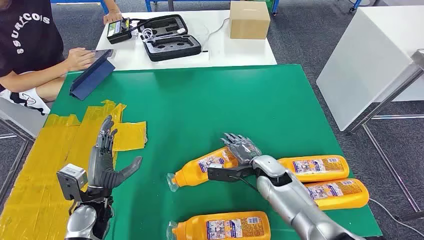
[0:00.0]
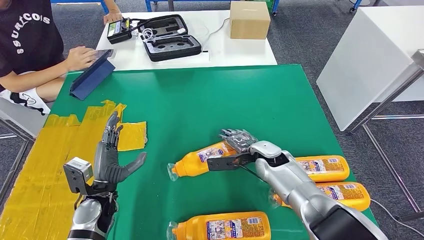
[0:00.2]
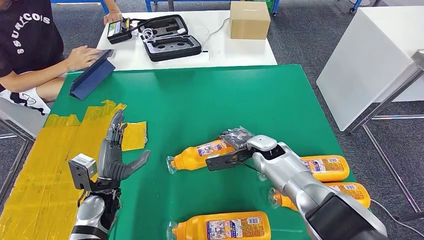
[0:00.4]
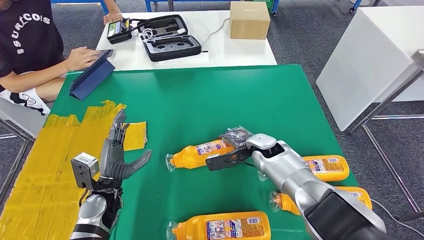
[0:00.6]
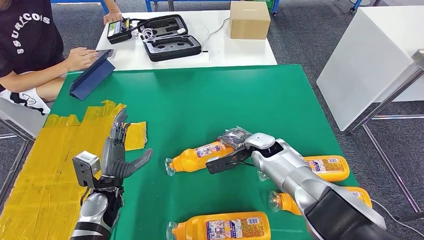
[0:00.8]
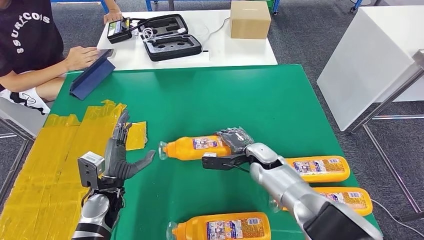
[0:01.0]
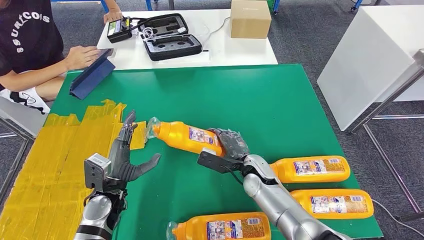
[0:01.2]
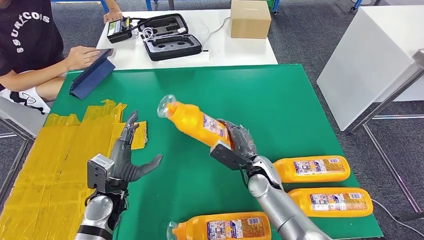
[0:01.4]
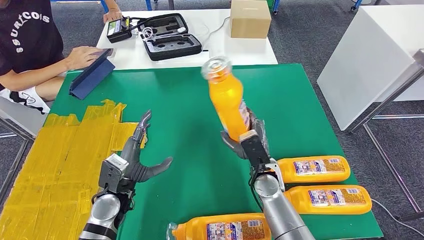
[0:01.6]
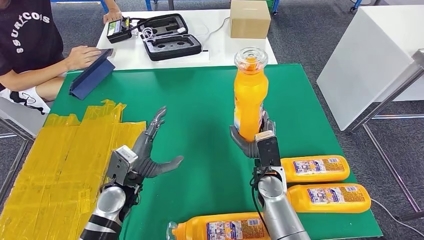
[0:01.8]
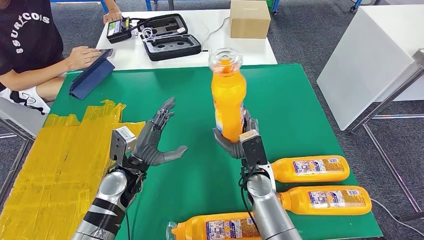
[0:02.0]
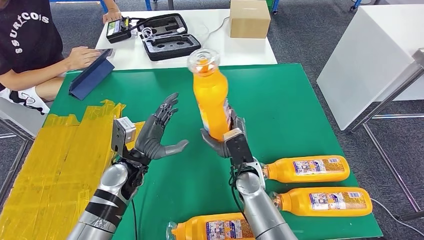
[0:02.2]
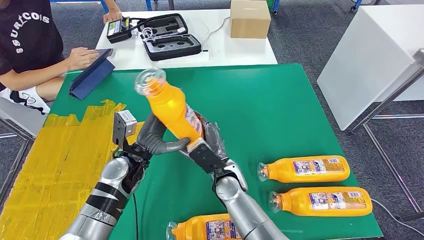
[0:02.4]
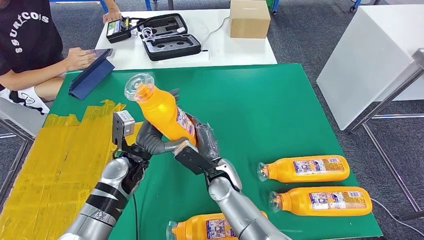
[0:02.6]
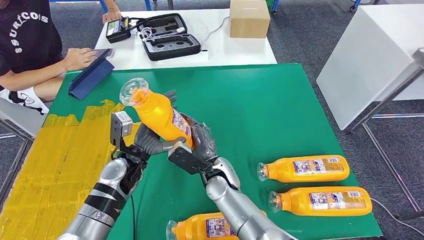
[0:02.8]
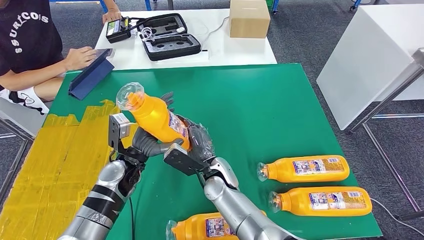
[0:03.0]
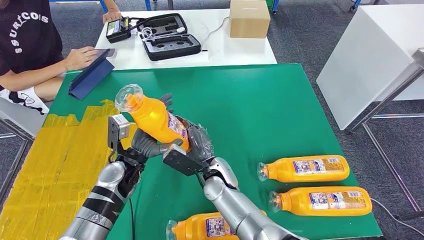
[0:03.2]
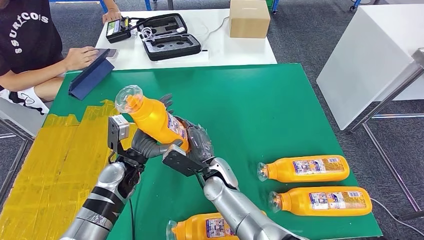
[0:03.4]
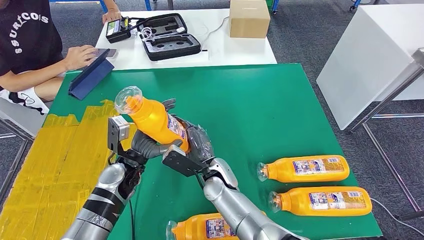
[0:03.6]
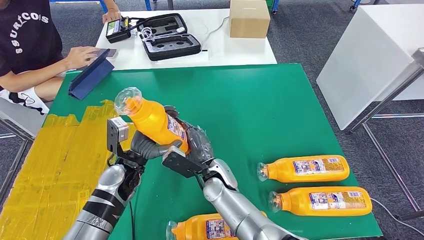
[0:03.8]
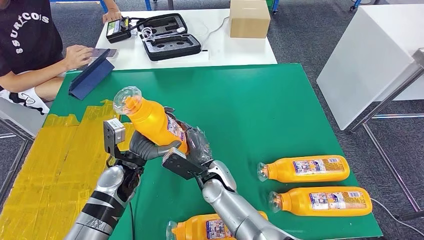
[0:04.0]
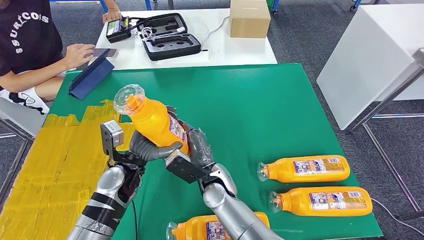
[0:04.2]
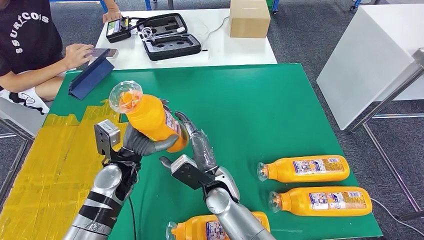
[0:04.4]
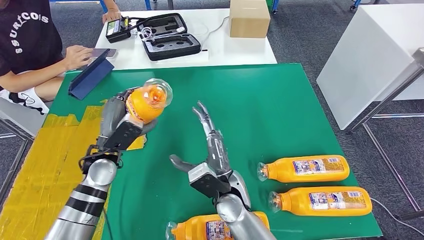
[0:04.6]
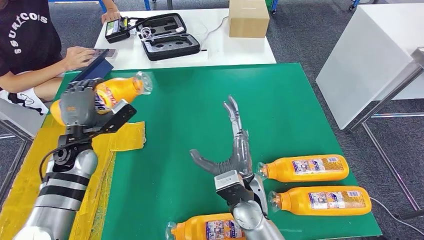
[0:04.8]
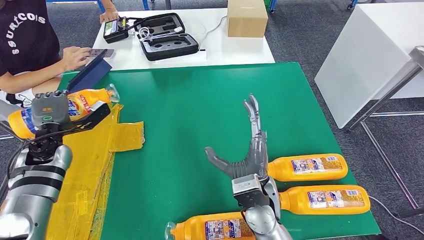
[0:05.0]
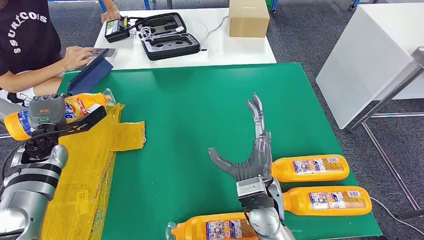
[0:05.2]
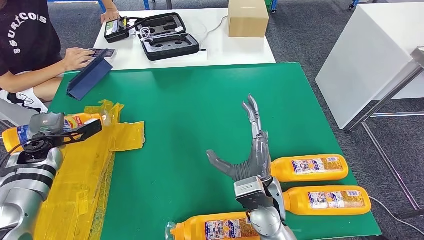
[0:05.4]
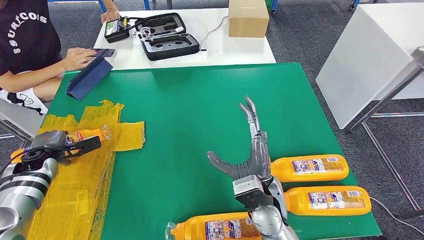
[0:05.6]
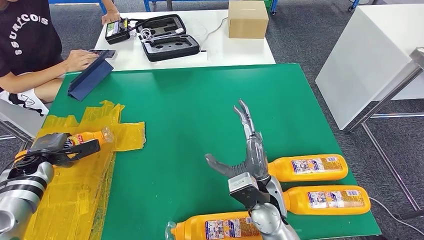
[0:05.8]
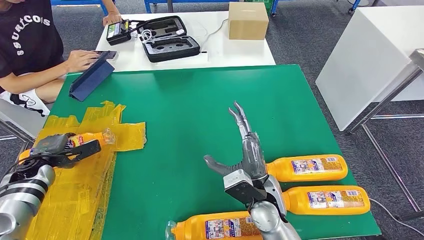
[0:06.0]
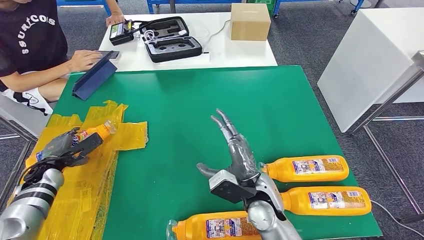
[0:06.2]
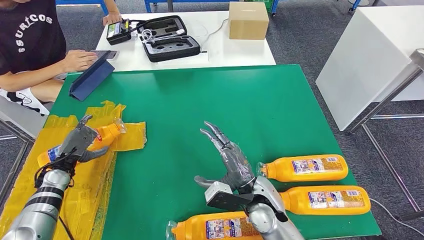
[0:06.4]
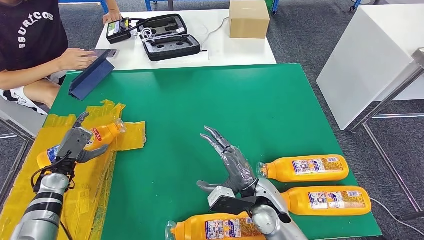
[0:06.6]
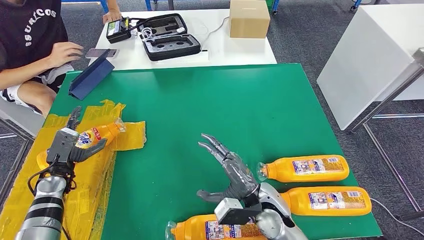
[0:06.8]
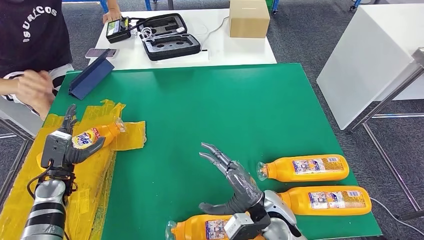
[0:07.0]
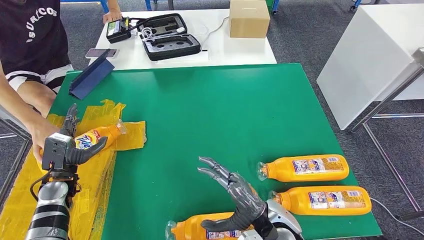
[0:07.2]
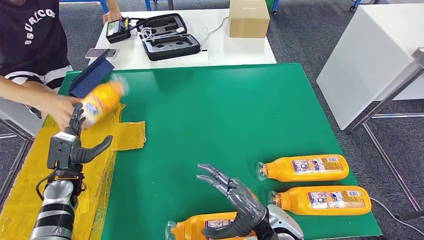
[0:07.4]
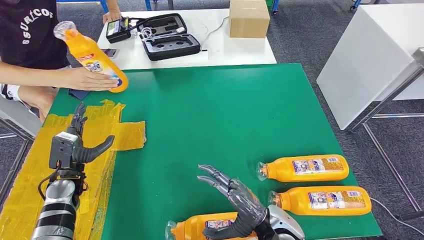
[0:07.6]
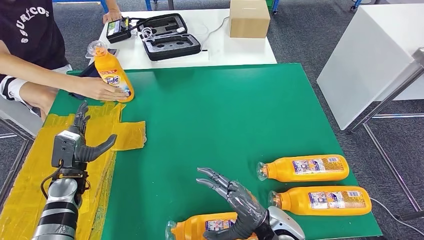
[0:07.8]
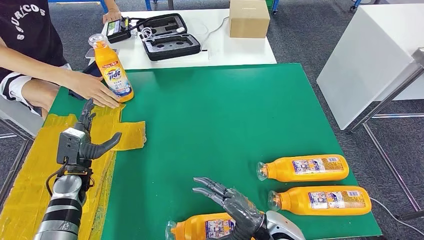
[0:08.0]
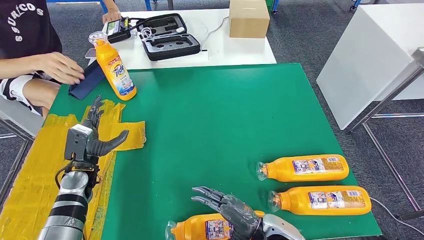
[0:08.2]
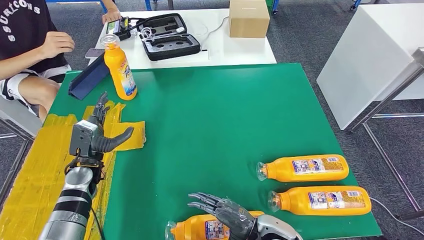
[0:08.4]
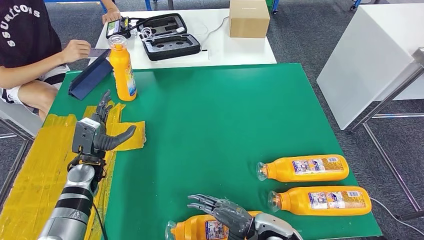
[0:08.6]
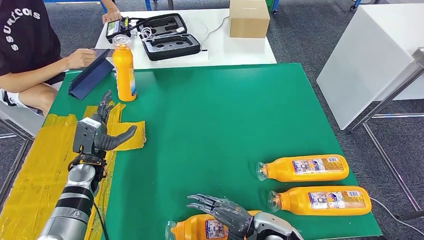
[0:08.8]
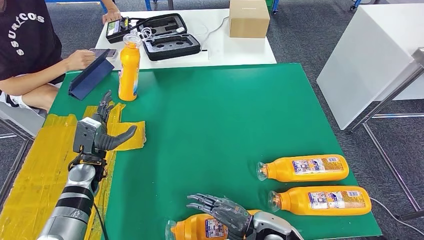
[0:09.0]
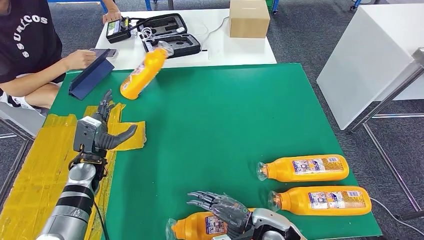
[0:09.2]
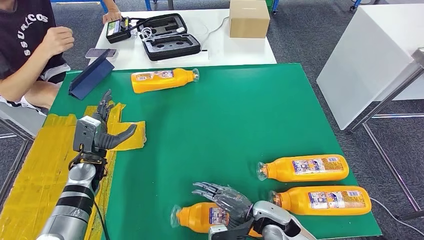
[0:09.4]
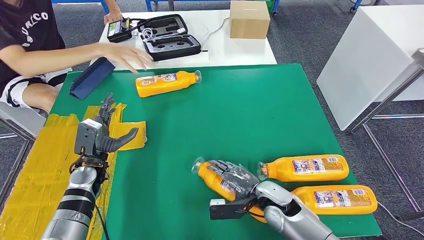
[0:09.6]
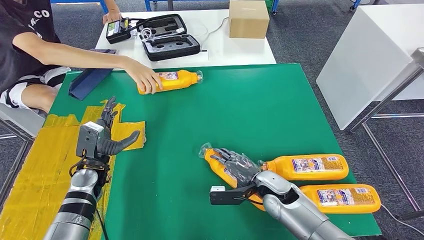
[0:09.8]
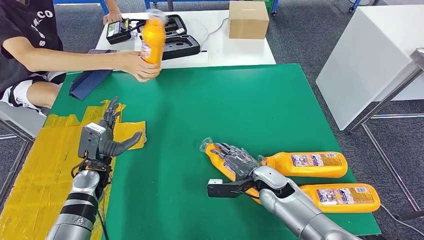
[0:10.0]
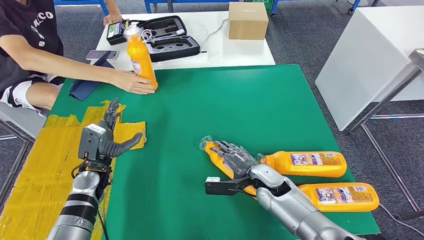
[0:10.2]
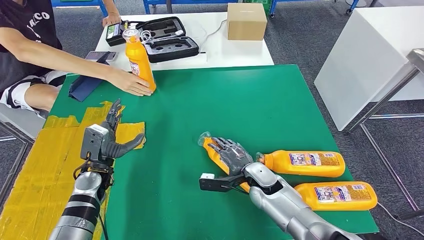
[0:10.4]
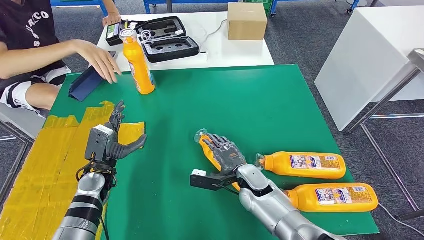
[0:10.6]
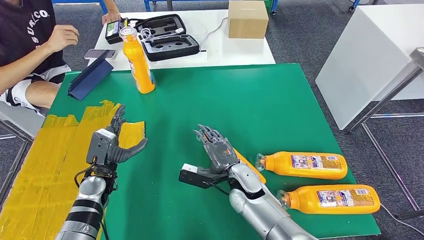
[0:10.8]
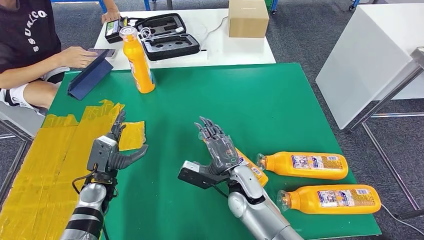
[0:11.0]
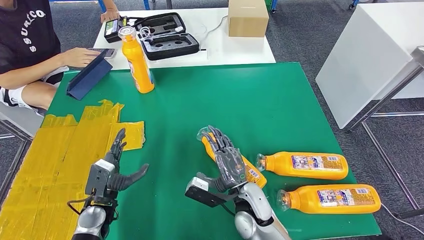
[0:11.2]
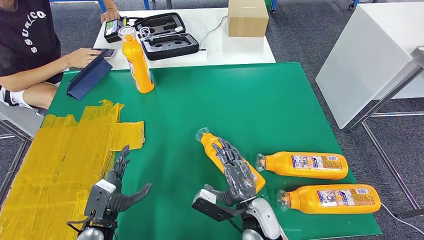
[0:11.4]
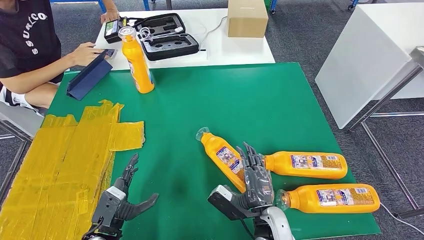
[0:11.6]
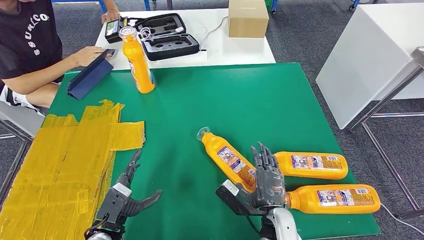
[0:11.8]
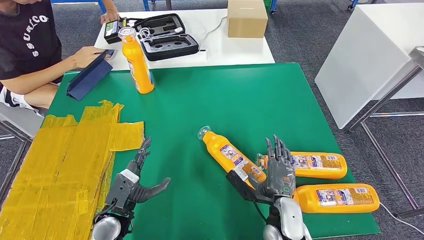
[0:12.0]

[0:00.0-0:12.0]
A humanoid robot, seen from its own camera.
Step, 0:00.0 to 0:03.8: Take the fast-moving consumer goods bottle from the table.
Step, 0:04.2 to 0:08.6: Flip the fast-moving consumer goods bottle to the front side.
0:03.0 to 0:04.4: The hands move only a little.
0:07.6 to 0:09.0: The left hand travels to the right by about 5 cm. Meanwhile the right hand is displaced downward by approximately 5 cm.

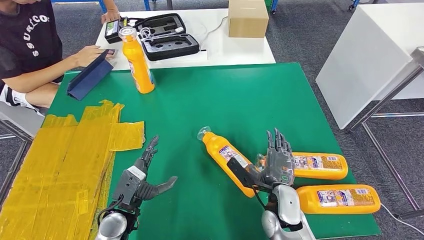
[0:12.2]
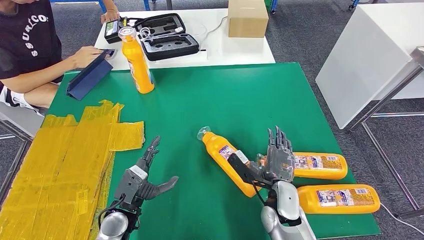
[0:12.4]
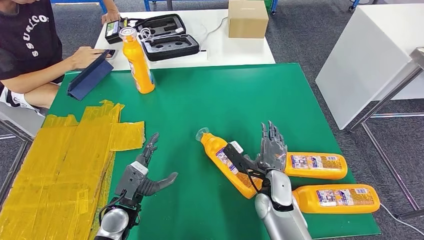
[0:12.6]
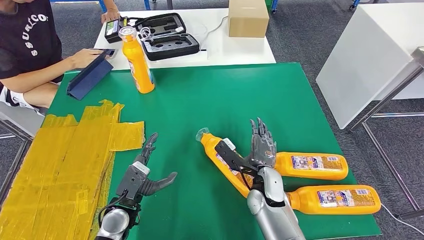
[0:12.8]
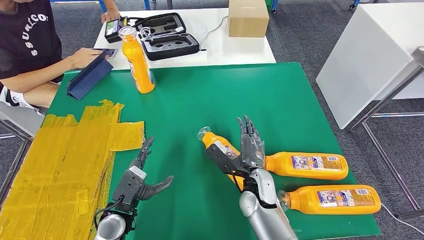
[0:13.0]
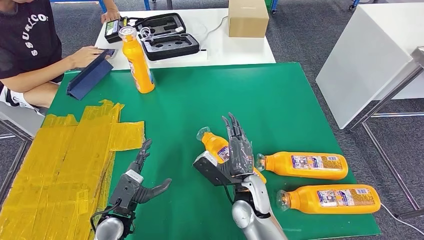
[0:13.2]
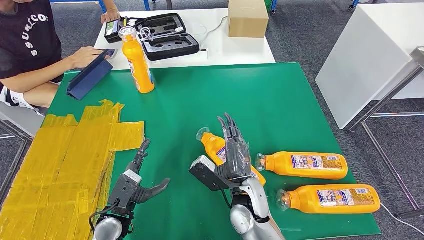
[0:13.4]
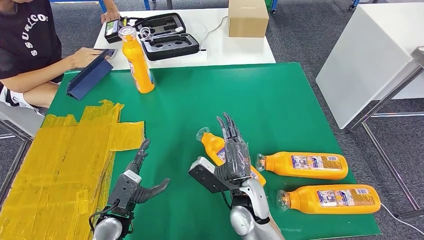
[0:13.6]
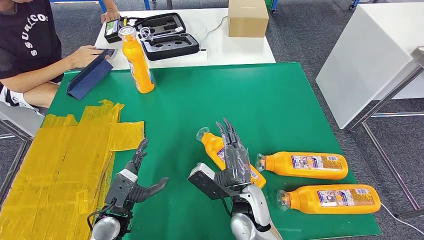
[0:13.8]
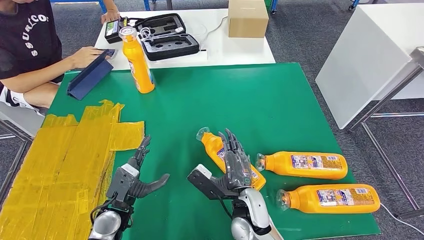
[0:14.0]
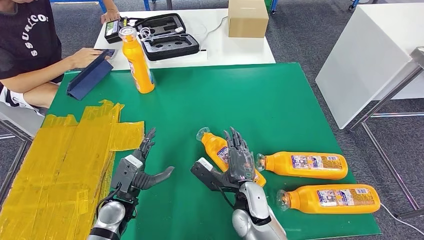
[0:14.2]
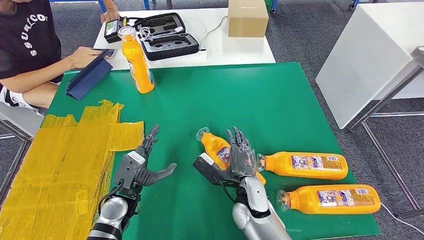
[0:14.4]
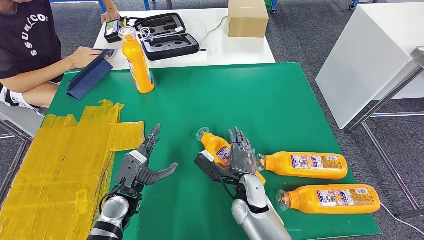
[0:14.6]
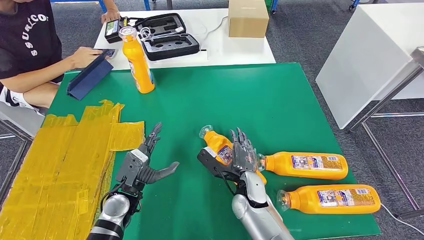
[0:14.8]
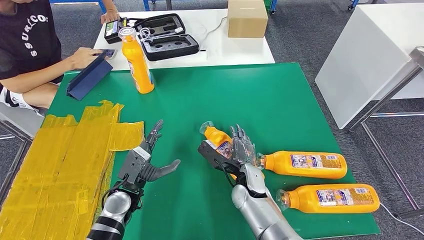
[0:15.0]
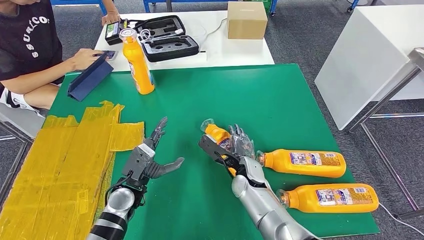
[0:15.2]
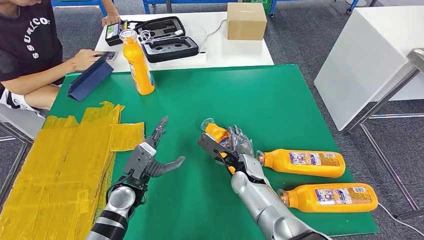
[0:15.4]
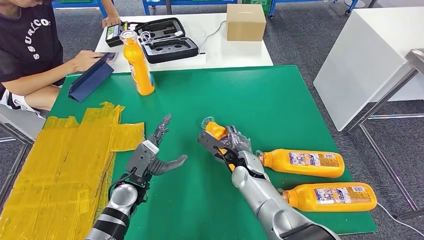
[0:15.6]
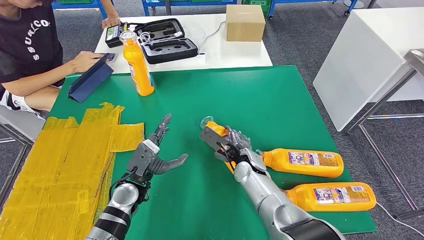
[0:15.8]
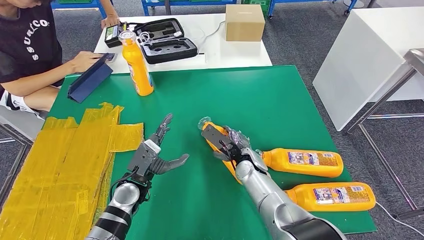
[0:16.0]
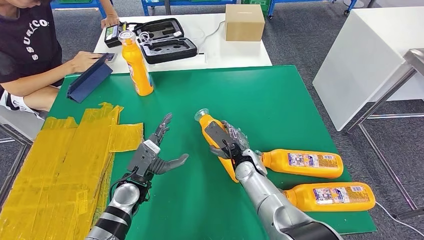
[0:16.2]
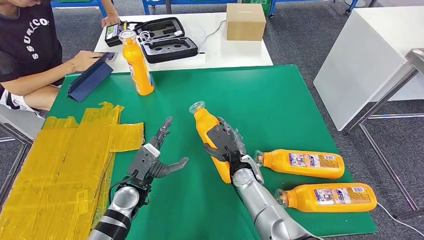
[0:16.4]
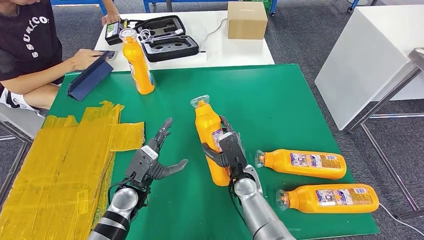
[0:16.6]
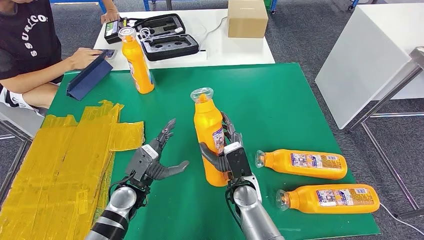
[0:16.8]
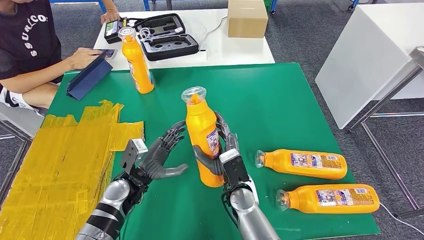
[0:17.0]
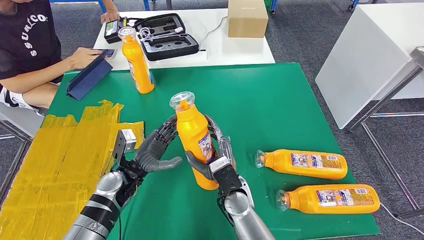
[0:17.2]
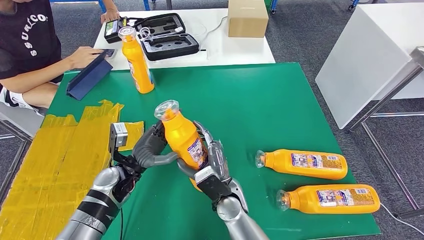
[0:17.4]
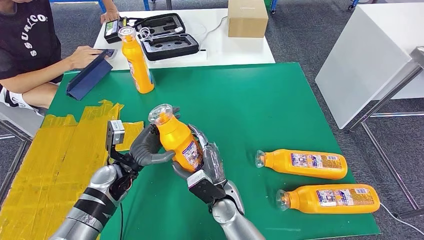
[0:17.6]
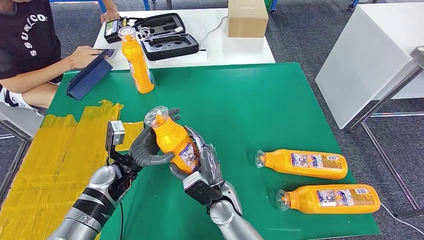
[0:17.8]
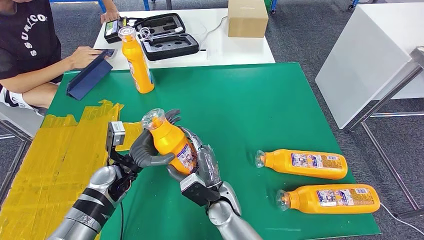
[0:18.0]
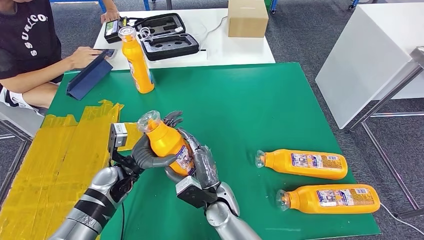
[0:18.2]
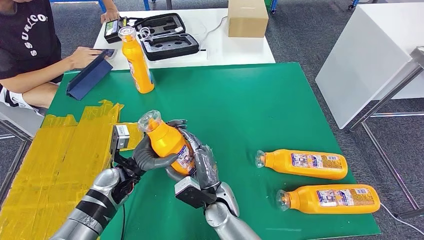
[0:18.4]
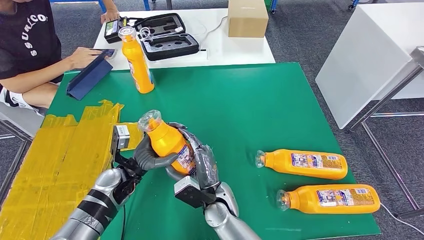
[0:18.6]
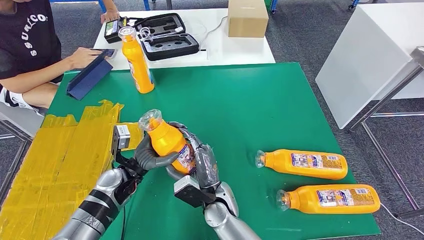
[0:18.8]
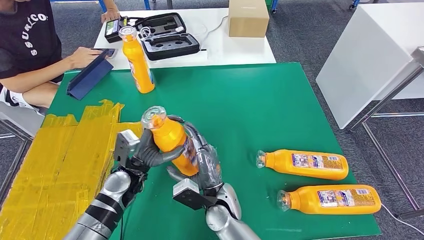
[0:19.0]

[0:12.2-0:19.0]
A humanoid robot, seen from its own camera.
Step, 0:15.2 to 0:18.0: Pick up the fast-moving consumer goods bottle from the table.
0:12.2 to 0:13.6: The right hand travels to the left by approximately 10 cm.
0:13.6 to 0:15.0: The right hand travels forward and downward by approximately 10 cm. Meanwhile the left hand travels forward by about 5 cm.
